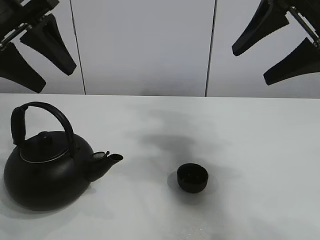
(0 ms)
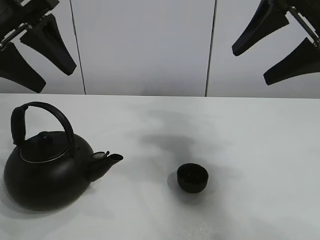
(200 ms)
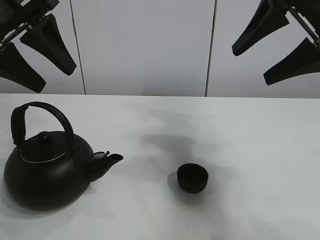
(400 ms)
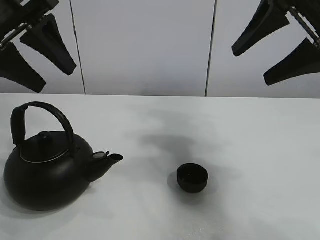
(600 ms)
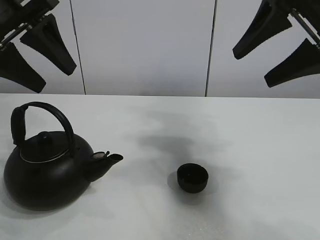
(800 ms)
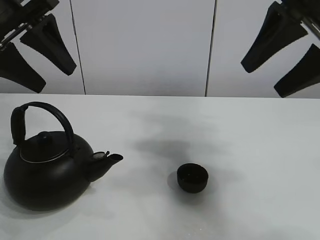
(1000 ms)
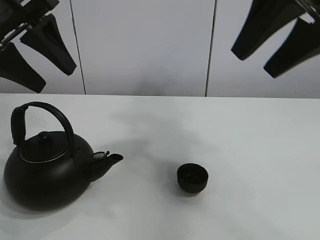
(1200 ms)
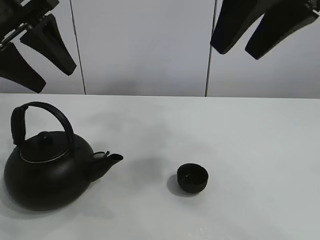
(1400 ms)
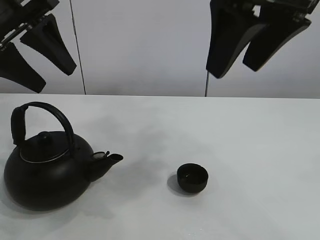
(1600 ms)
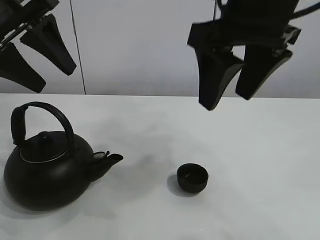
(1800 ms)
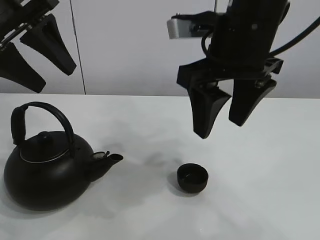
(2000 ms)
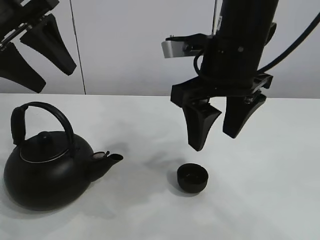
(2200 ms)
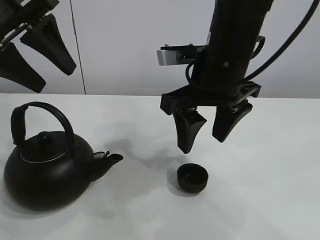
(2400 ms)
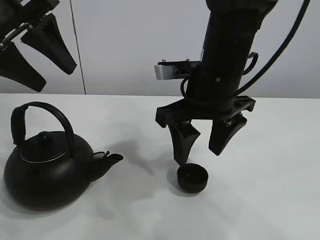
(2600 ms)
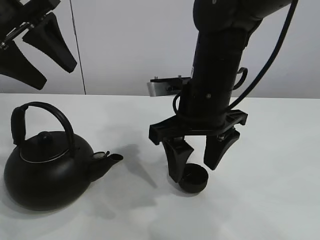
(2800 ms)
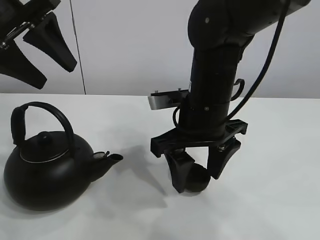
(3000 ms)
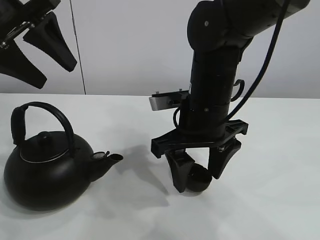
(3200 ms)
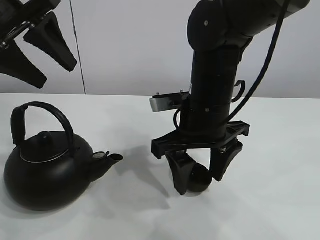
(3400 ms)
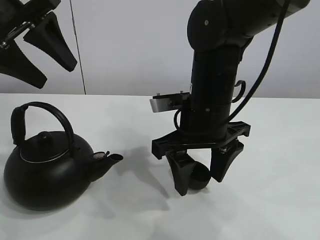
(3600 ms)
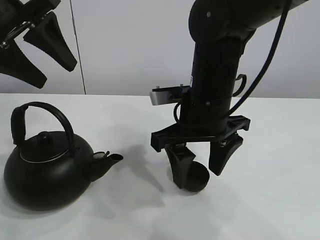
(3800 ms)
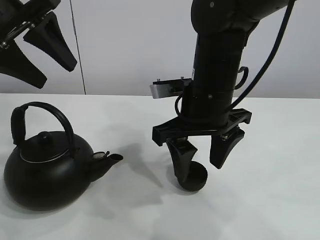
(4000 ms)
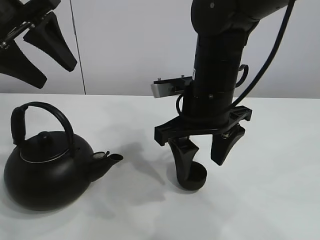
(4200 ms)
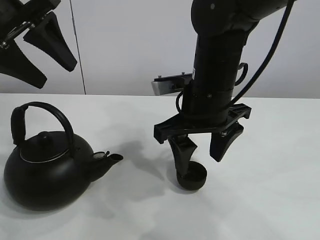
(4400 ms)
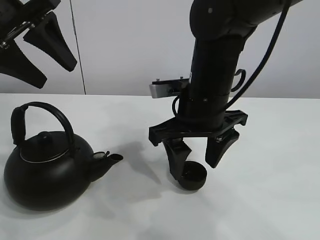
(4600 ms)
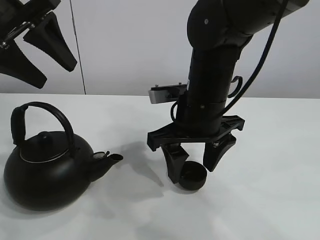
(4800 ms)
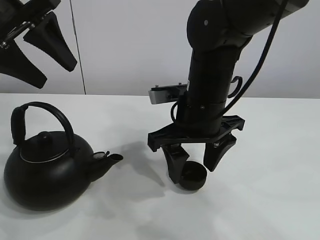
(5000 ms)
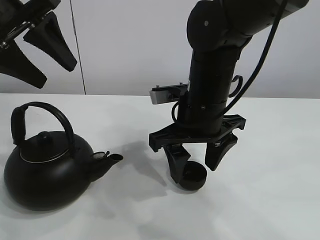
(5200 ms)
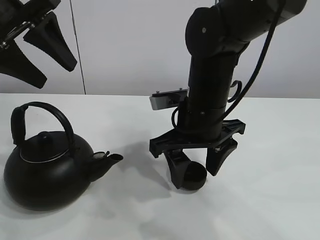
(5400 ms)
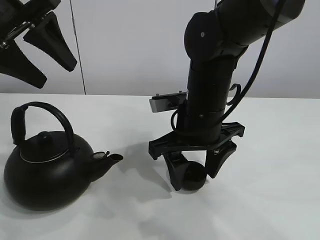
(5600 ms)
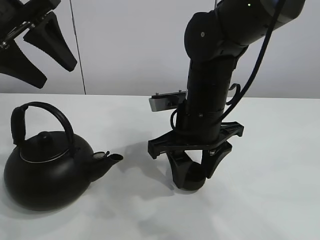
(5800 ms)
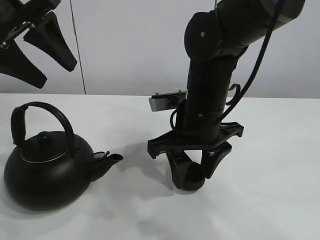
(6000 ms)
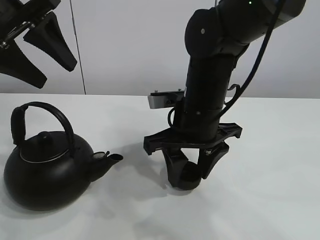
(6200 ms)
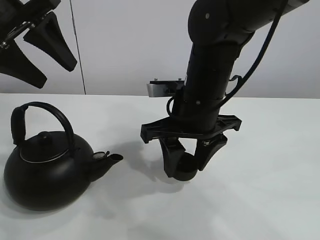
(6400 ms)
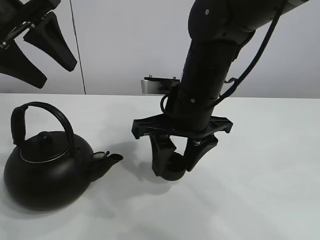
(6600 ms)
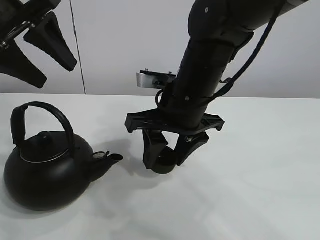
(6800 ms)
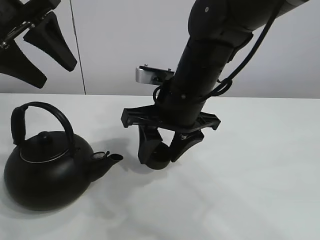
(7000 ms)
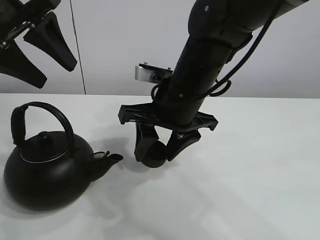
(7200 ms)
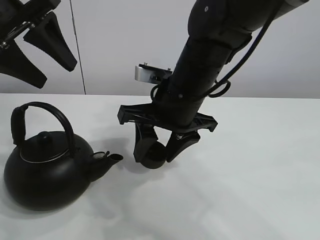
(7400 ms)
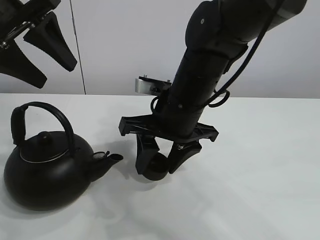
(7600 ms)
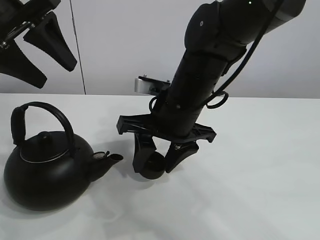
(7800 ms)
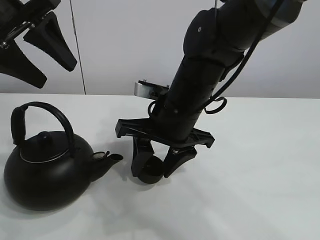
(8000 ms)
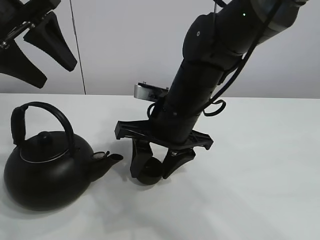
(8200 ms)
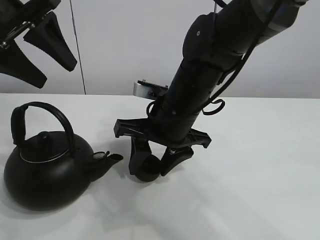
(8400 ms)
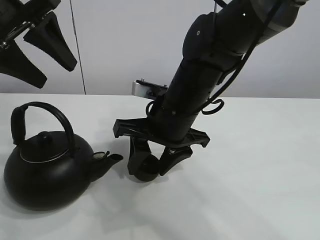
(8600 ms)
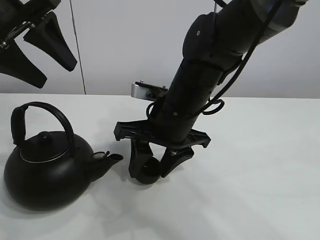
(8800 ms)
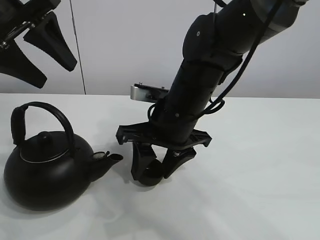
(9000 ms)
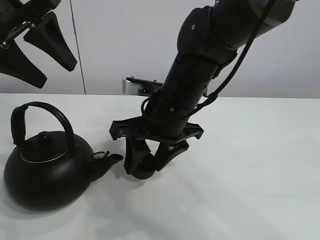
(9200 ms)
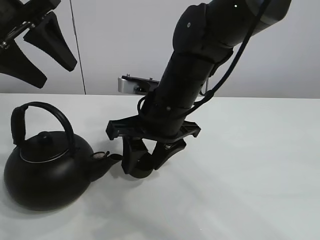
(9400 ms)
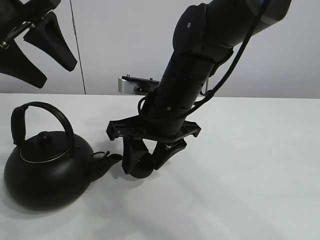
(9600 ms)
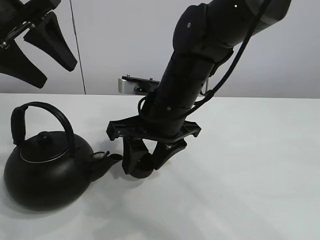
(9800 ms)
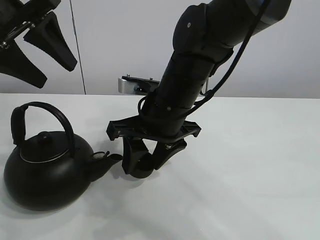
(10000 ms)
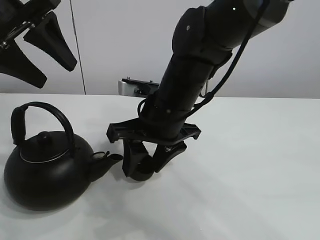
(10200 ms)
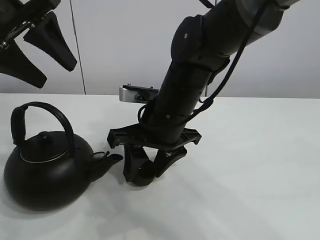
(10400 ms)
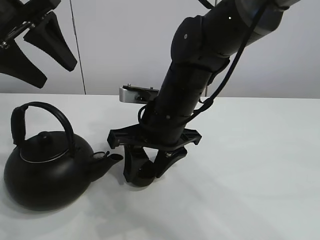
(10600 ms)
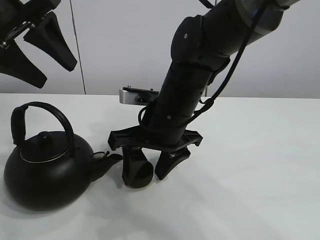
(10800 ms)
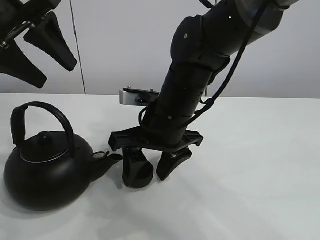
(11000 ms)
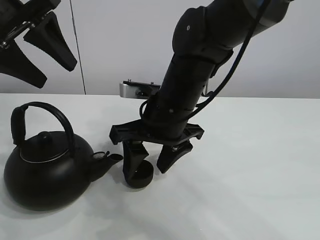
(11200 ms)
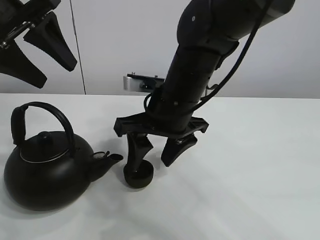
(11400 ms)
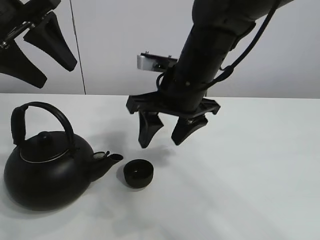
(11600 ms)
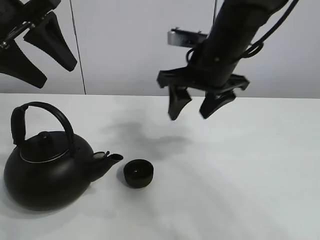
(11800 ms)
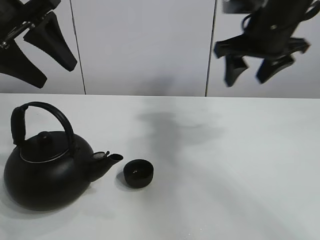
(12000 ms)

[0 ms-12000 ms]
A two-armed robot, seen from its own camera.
Task of the whole recording: pour tea into the teacup.
Step, 0 ms to 6200 ms: Pick up the teacup with the right gripper.
Step, 6400 ms to 7000 ms: Place the teacup in the center of view with the right gripper.
1600 ms to 3000 ms: The right gripper is displaced downward by roughly 20 cm.
3000 ms to 4400 ms: The grippers move only a little.
4400 ms to 6000 ms: The right gripper closes up.
6000 ms to 7600 ms: The grippers stay close to where they were, moving slightly.
7600 ms to 10400 ms: The grippers stay close to where they were, moving slightly.
10400 ms to 12000 ms: The right gripper travels to the right and upward by about 20 cm, and opens.

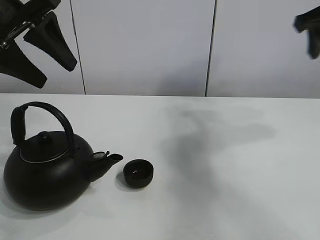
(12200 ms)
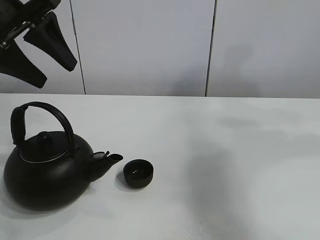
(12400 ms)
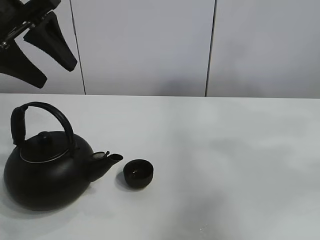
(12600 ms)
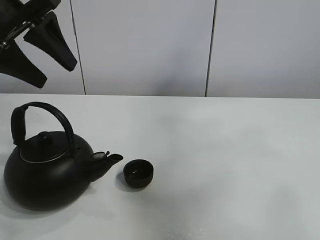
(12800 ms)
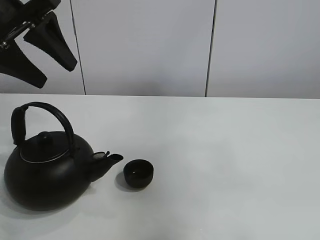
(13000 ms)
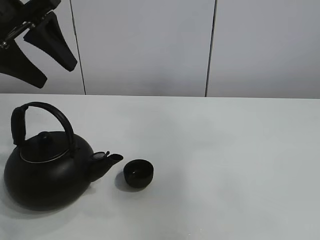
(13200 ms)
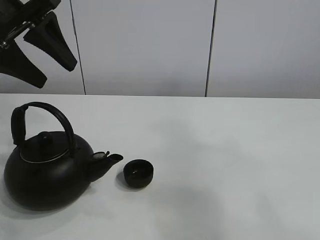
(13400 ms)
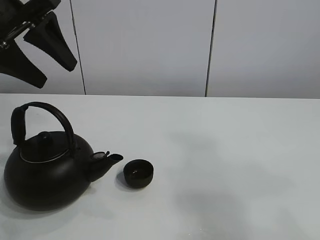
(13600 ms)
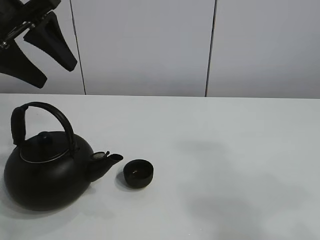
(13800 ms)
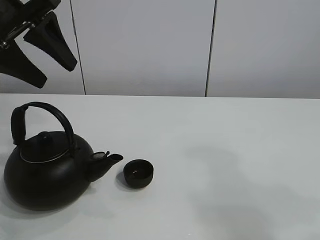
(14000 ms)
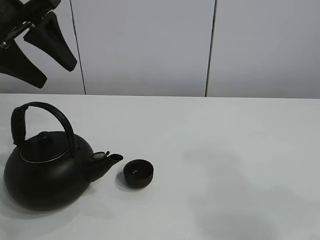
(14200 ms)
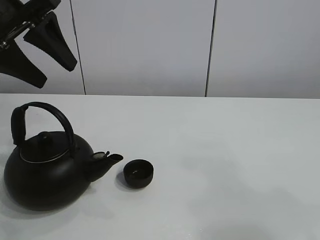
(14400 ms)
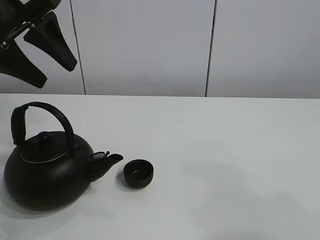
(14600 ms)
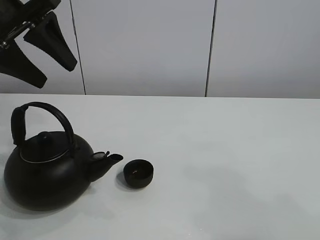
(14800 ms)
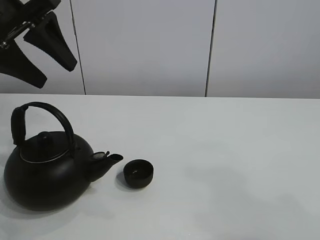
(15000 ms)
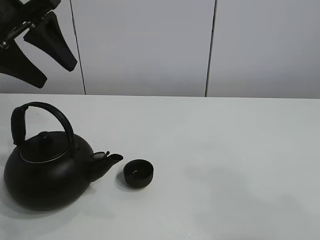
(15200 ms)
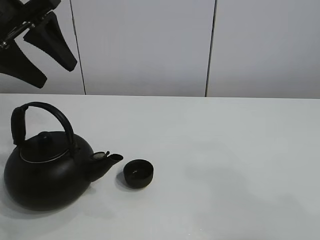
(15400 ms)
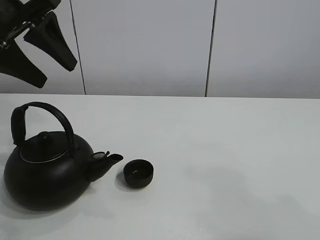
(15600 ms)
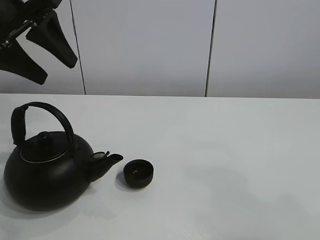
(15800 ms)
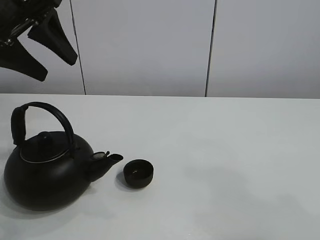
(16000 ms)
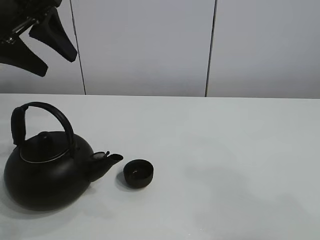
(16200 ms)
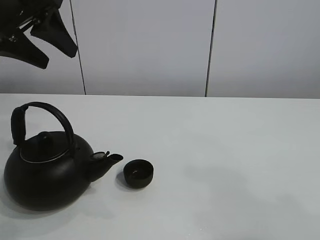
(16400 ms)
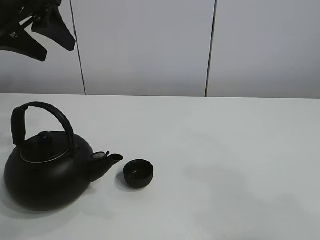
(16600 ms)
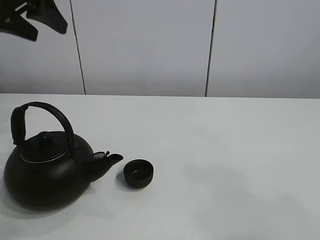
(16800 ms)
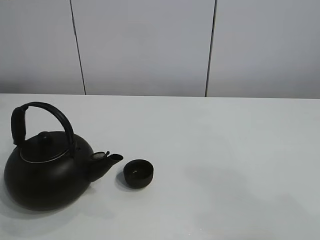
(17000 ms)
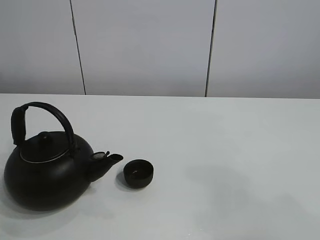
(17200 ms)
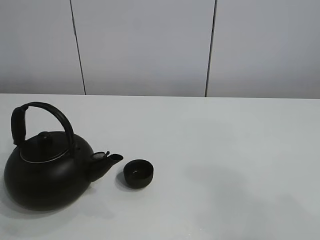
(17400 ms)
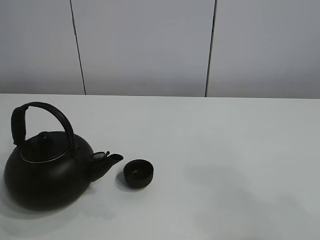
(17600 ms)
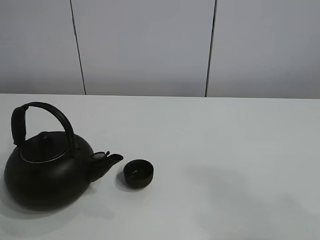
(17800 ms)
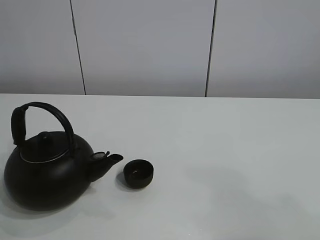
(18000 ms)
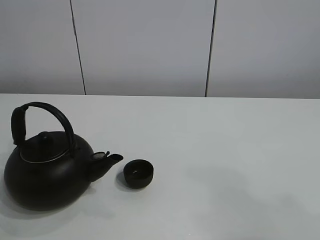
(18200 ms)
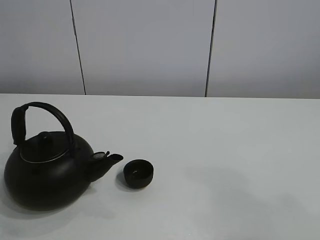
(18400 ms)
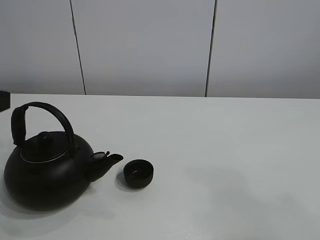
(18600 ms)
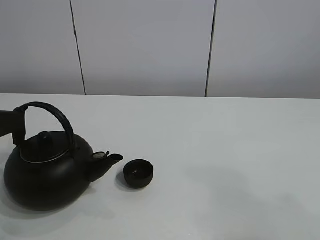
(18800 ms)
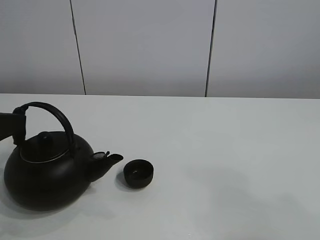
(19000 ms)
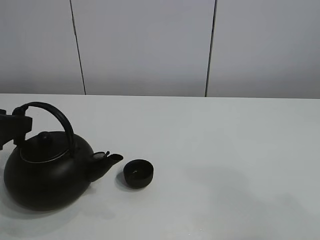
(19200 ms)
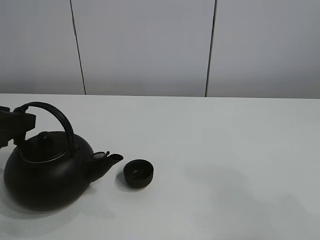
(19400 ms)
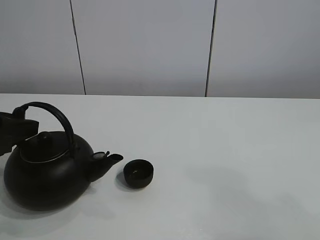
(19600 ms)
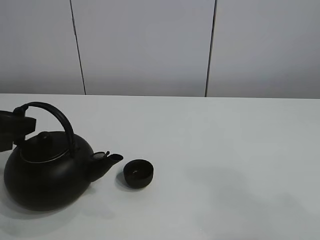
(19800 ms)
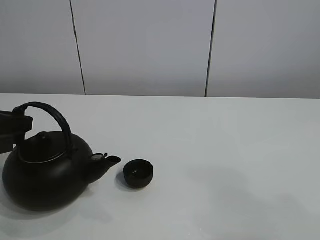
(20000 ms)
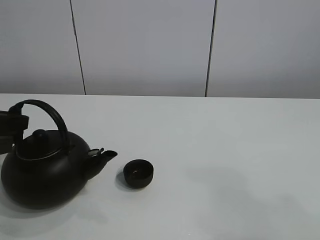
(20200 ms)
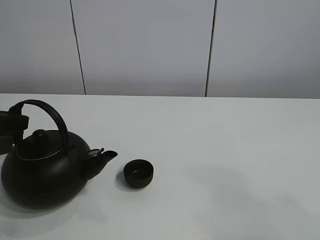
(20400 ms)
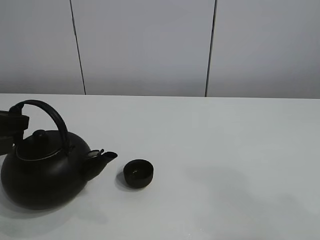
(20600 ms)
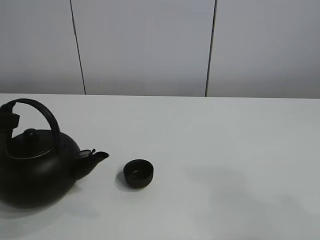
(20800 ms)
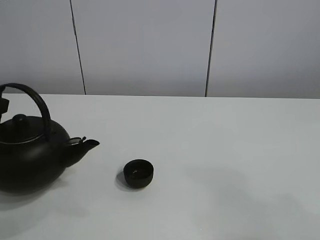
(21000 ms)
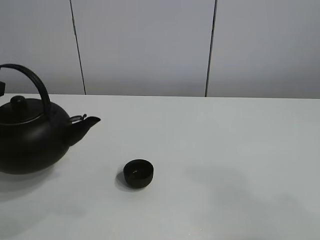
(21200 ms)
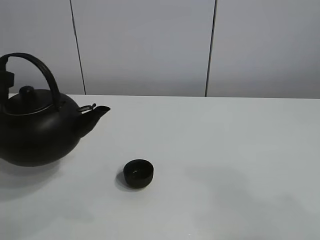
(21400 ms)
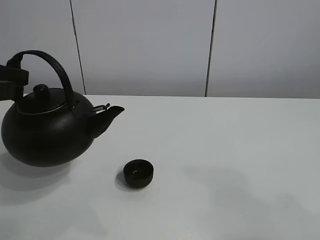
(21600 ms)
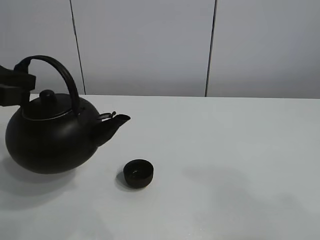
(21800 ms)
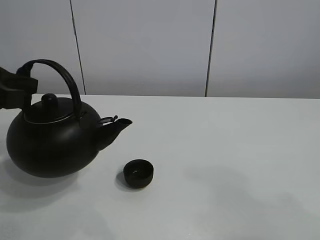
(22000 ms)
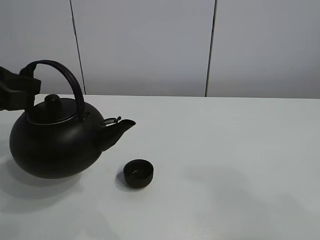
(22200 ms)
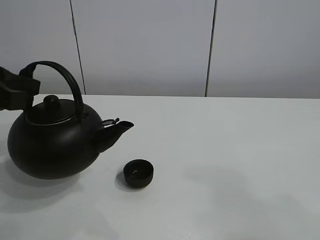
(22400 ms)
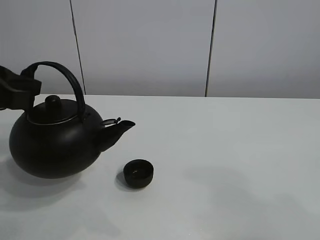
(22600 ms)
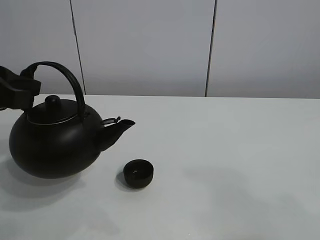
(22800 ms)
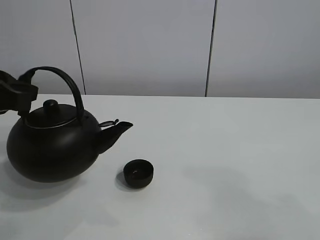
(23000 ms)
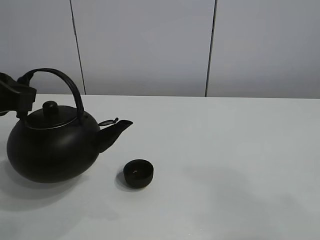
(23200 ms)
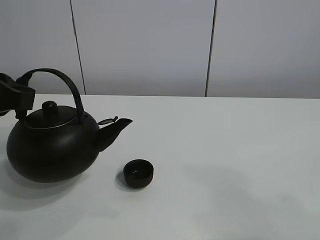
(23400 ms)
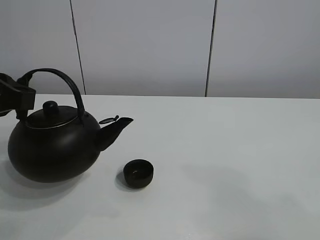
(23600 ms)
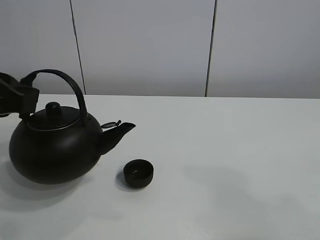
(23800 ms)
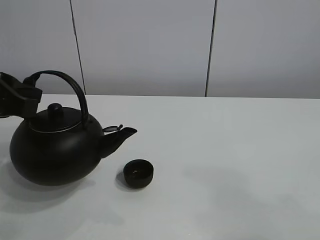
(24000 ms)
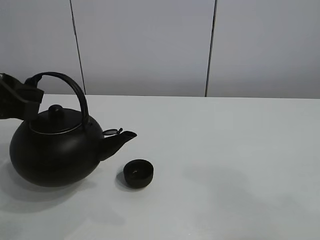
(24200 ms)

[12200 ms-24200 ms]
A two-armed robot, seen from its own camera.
Task of the whole recording: pour tea into the teacup.
Step, 12200 ms to 20800 ms: Pick up the teapot with the left gripper.
12200 ms to 13800 ms: The right gripper moves backward, about 30 cm.
15200 ms to 16600 ms: There are only small adjustments of the grippers.
16600 ms to 18200 ms: The left gripper travels backward by roughly 20 cm.
18200 ms to 19800 ms: The left gripper moves downward and forward, about 10 cm.
19800 ms to 21200 ms: The left gripper travels upward by approximately 5 cm, and closes.
21200 ms to 24200 ms: The grippers move only a little.
